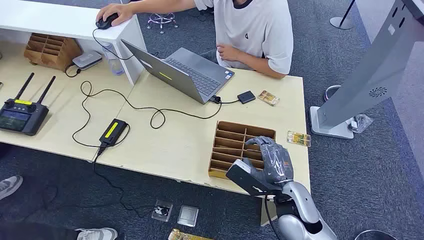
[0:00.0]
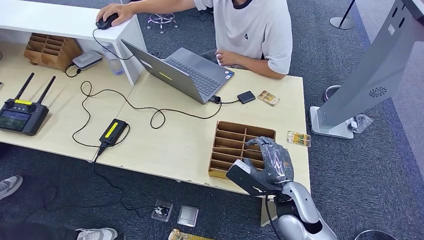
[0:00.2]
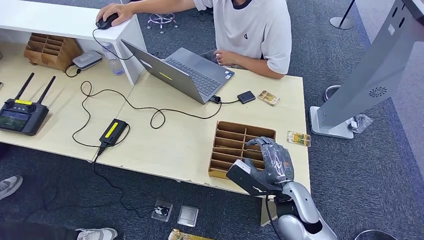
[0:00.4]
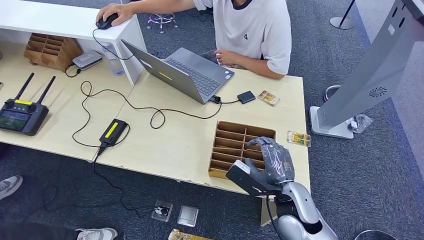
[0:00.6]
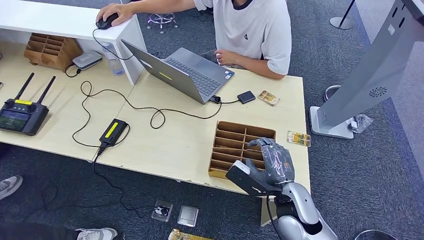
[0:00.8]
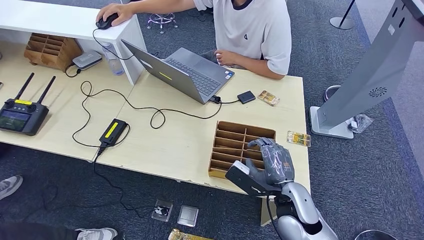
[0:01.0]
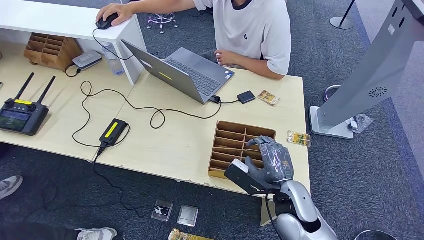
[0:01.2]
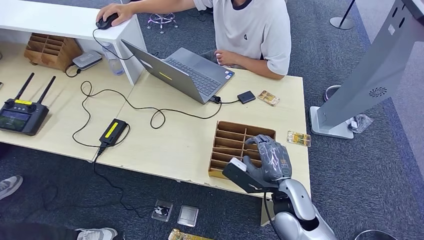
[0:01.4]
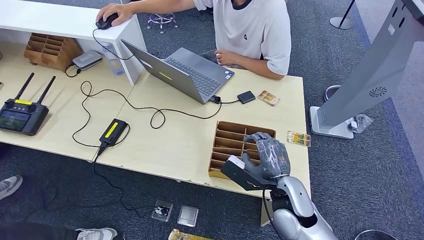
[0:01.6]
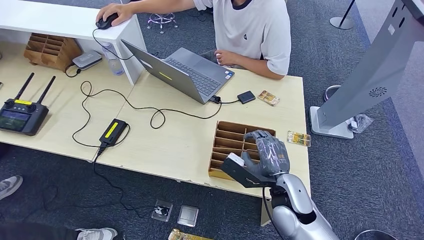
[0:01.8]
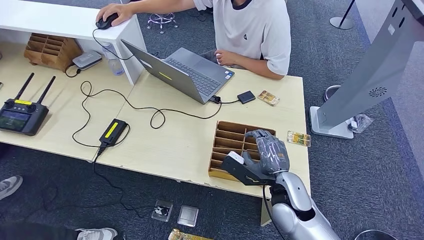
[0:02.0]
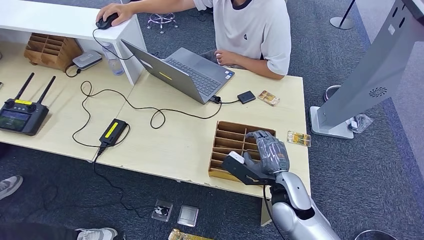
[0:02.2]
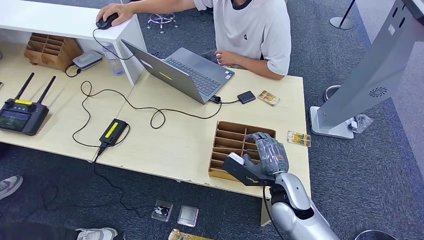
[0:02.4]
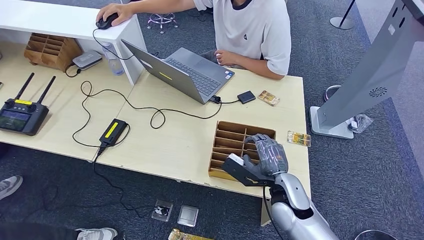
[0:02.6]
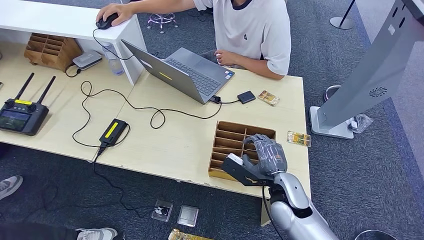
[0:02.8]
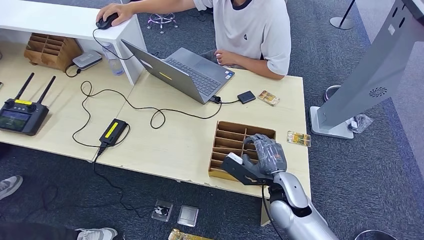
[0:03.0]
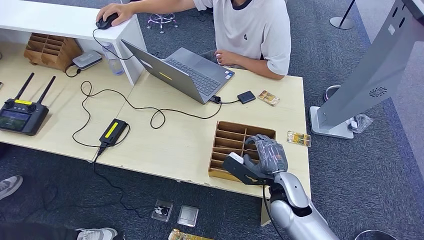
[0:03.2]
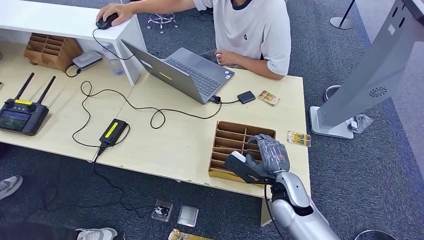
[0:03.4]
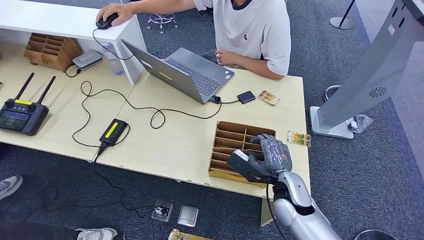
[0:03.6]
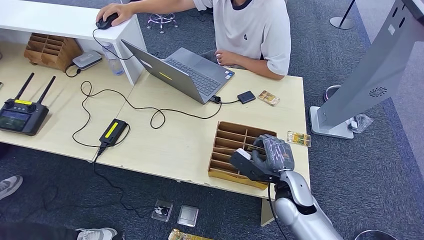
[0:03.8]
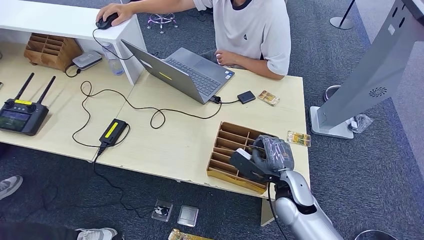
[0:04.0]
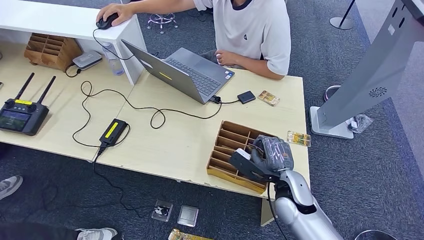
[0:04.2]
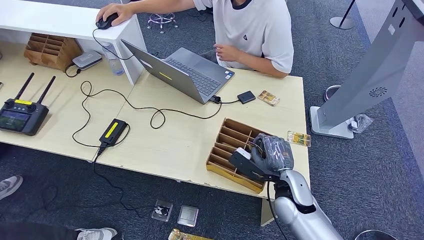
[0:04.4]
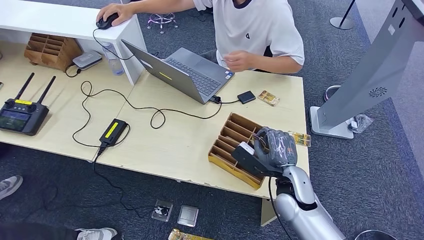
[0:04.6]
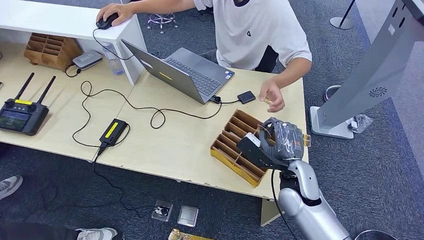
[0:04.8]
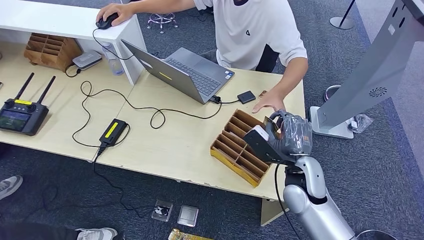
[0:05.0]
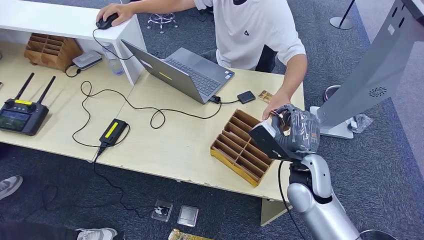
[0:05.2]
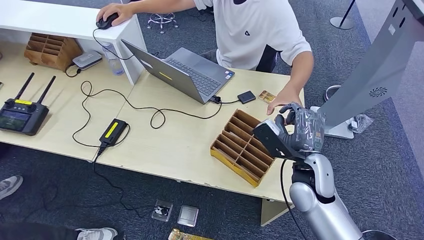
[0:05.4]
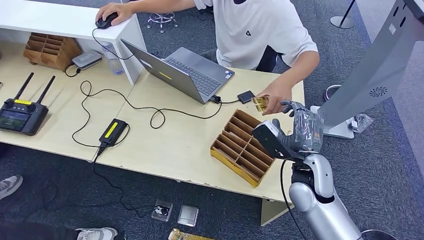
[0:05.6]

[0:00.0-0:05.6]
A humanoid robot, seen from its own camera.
Step, 0:00.0 to 0:04.4: Pick up the key card from the card box.
Step, 0:04.6 to 0:05.6: Hand the key card to the target.
0:01.4 to 0:04.2: The hands make only small movements.
0:04.2 to 0:05.6: The right hand goes some 5 cm upward.
